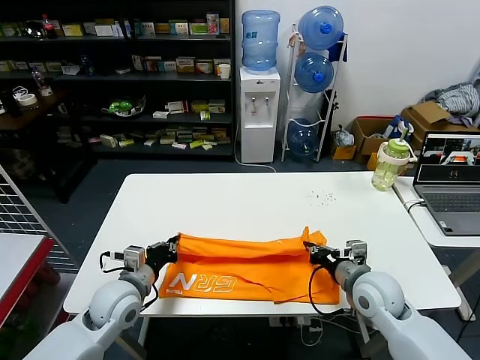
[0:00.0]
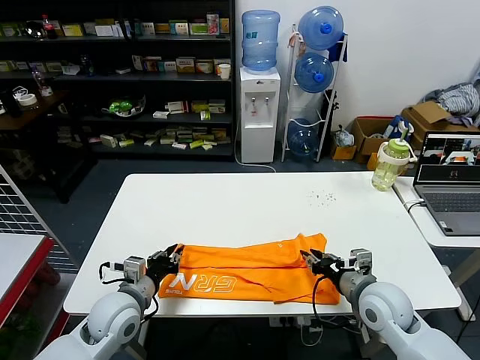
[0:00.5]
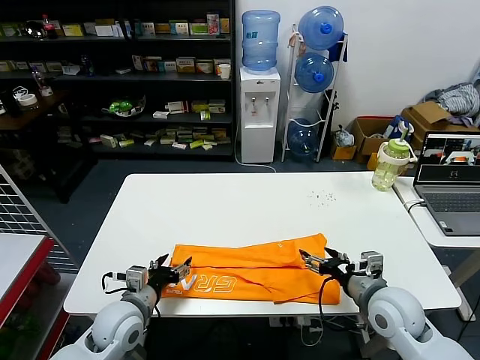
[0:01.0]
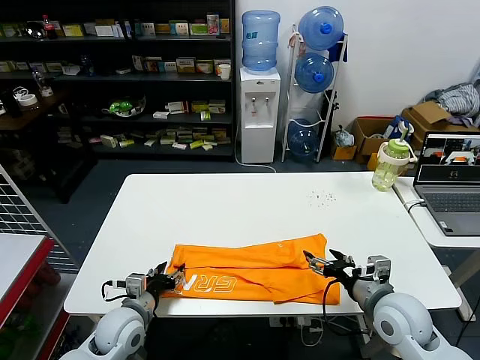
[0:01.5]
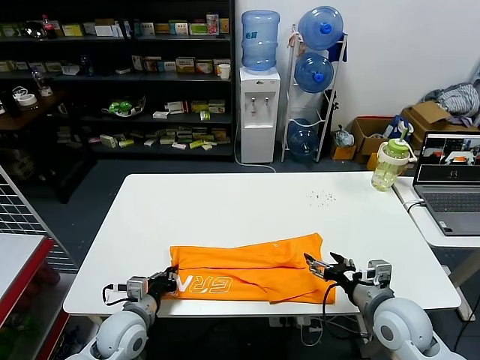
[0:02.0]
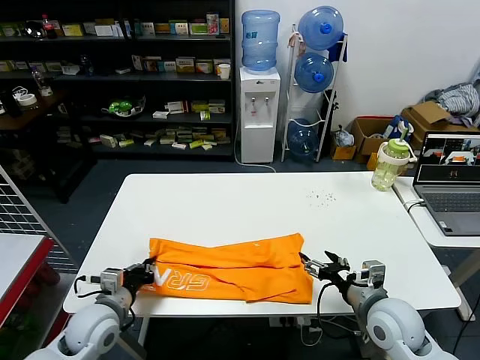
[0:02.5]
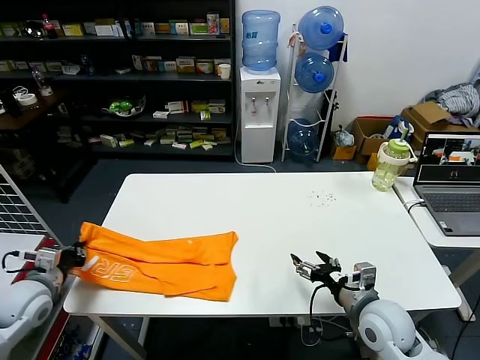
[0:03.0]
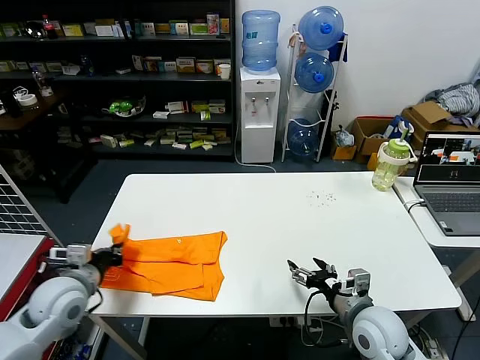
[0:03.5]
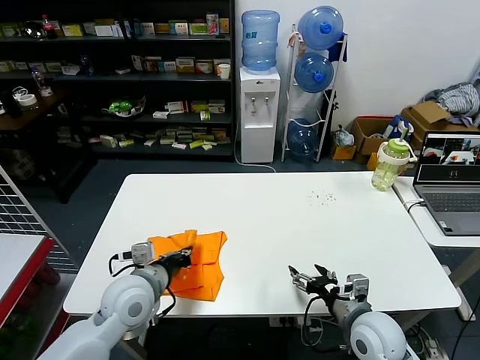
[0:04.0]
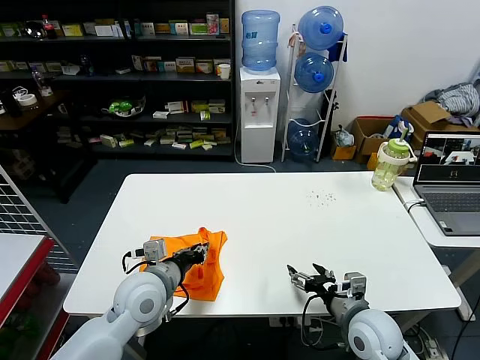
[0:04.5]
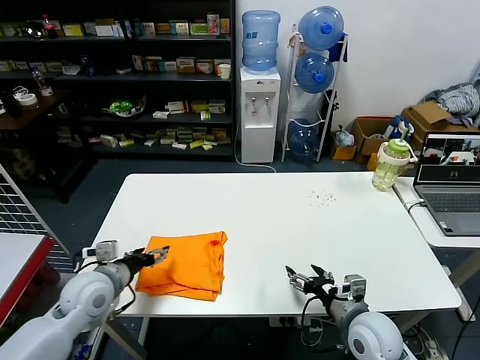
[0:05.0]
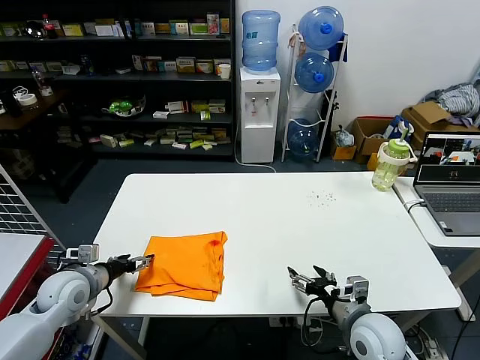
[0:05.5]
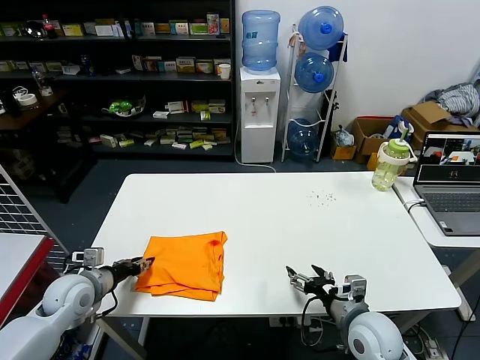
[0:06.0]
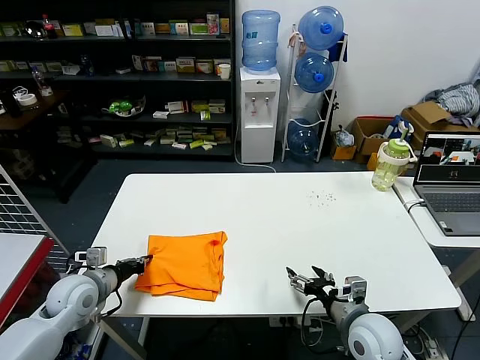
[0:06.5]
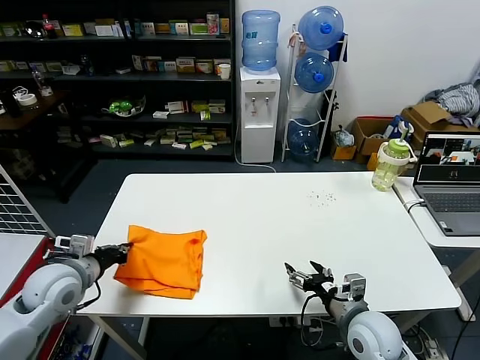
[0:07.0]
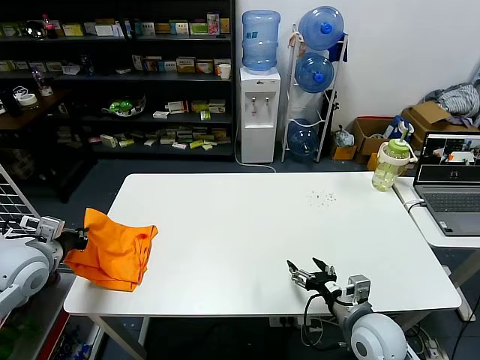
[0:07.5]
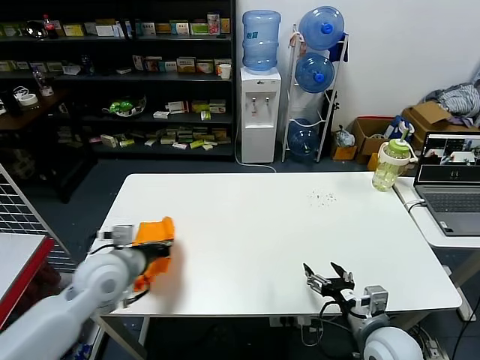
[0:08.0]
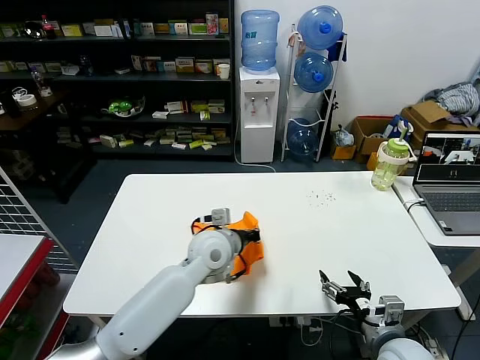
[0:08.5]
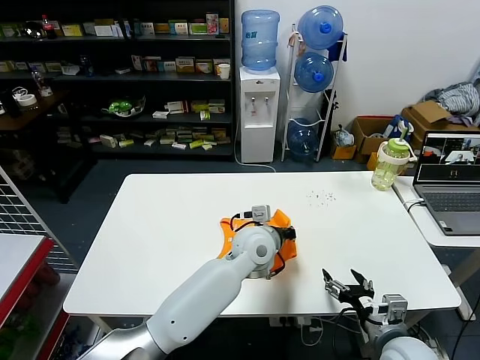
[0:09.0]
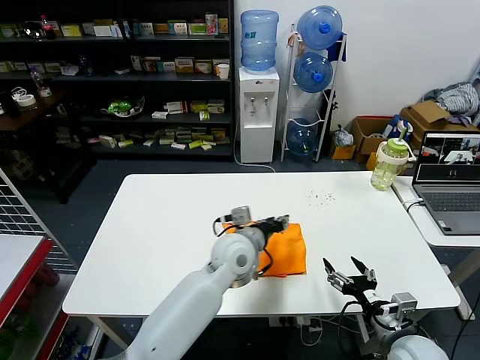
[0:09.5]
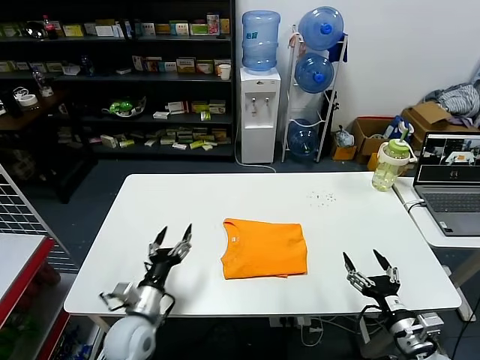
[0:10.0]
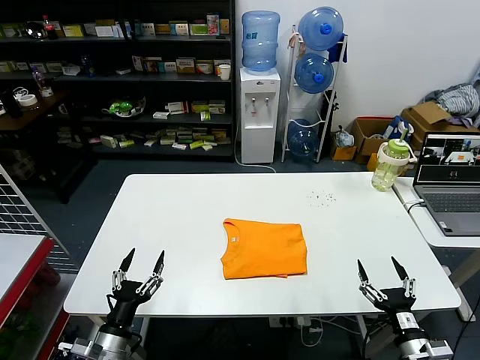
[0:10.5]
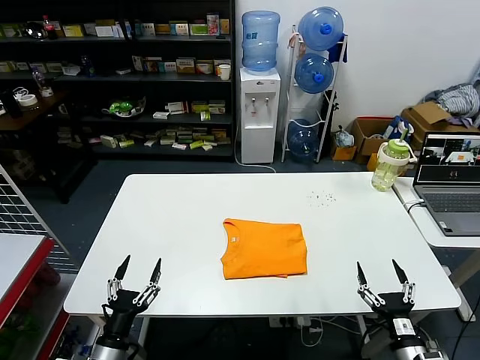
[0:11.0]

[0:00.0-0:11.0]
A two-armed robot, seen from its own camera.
Task of the whole recording: fold and organize the clothes.
Step, 0:01.5 to 0:02.0: use the left gripper to clamp the left edge of the fabric.
Step, 0:02.5 to 0:04.5: use the left gripper to drag the left edge of the fabric to the left and folds it over the right edge.
Step, 0:05.0 to 0:09.0: Flip the folded clothes over with left gripper.
0:00.0 to 0:02.0: The right gripper heads backward, covering roughly 5 cm, and opens up; the left gripper is displaced downward by roughly 5 cm, and opens, then closes again.
0:02.0 to 0:03.5: The left gripper moves upward and to the left, roughly 15 cm.
0:03.5 to 0:05.5: The left gripper goes to the right and returns, roughly 15 cm each way, and opens its fingers.
0:05.5 to 0:07.5: The left gripper shifts some 10 cm upward, and closes its fingers.
0:07.5 to 0:09.0: The right gripper ends up about 5 cm from where it was; the left gripper shifts about 40 cm to the right.
0:09.0 to 0:11.0: The right gripper goes some 10 cm backward and downward; the left gripper heads to the left, backward and downward, covering about 40 cm, and opens up.
